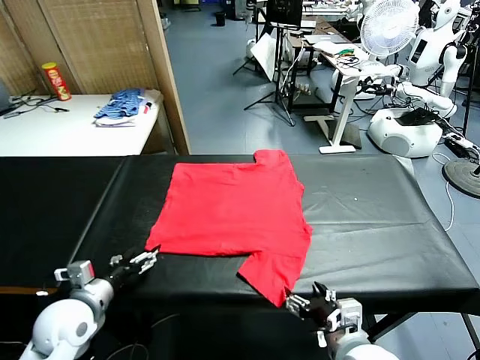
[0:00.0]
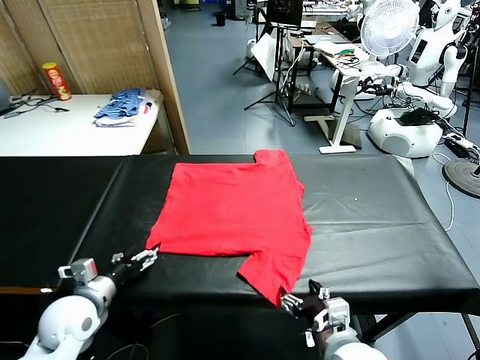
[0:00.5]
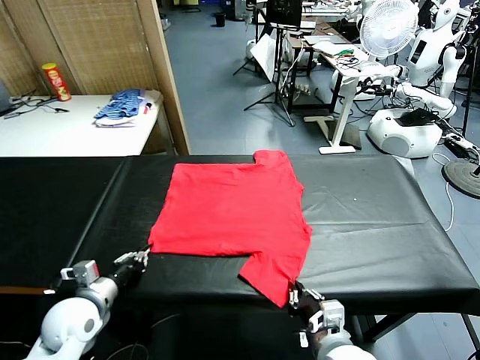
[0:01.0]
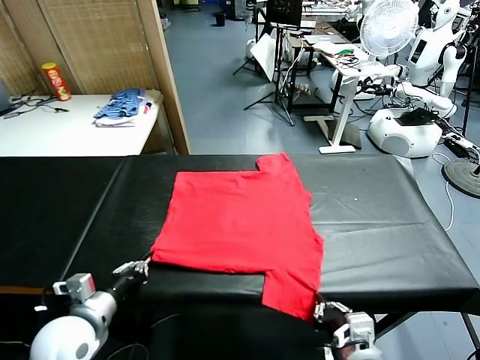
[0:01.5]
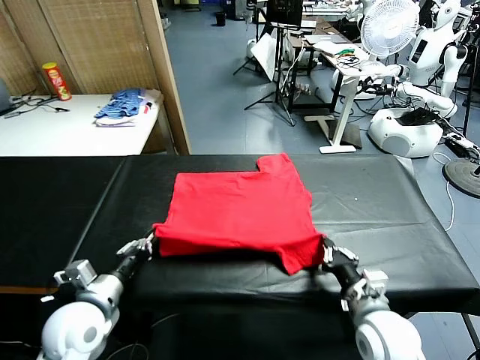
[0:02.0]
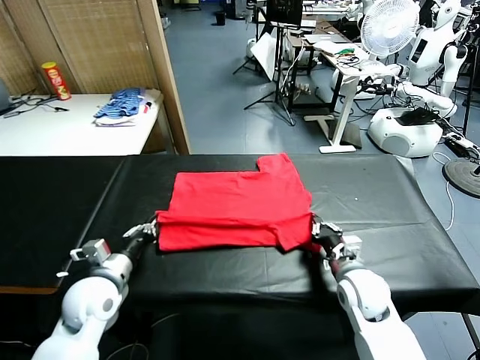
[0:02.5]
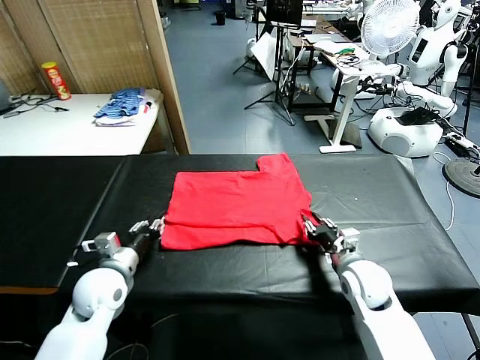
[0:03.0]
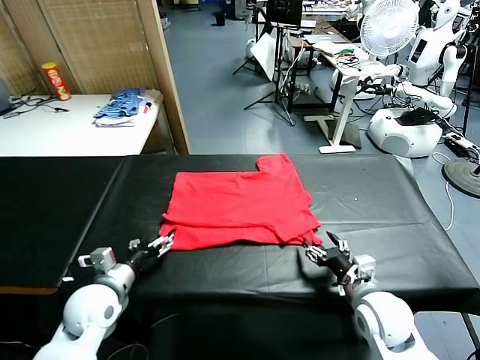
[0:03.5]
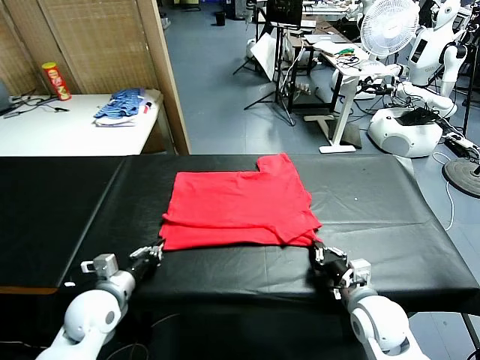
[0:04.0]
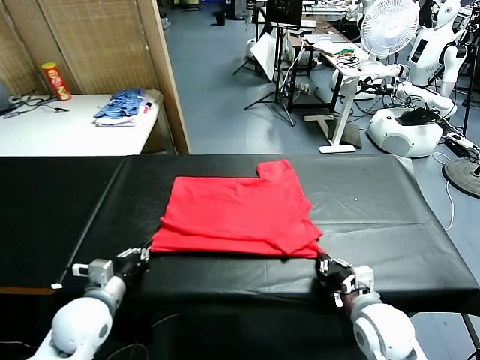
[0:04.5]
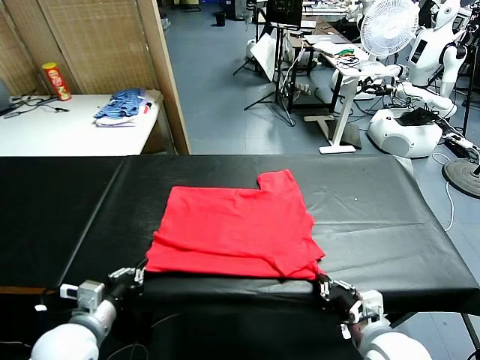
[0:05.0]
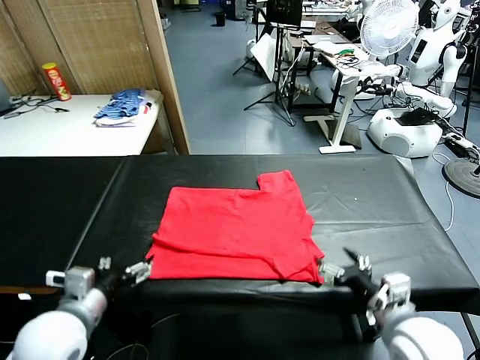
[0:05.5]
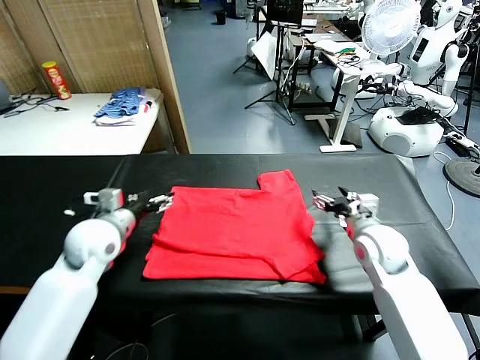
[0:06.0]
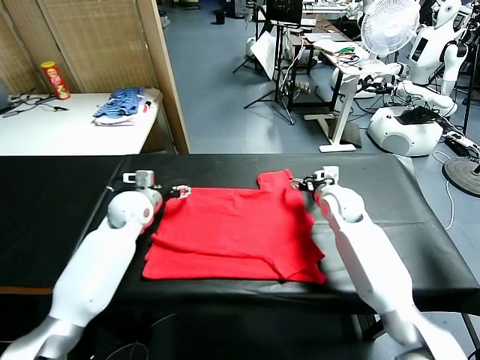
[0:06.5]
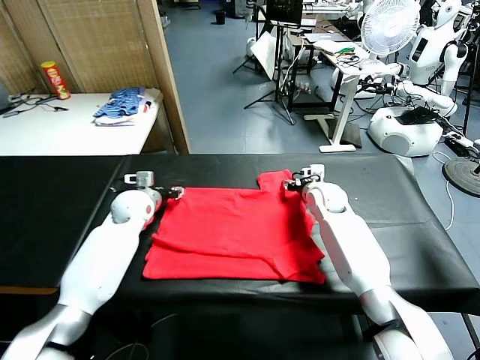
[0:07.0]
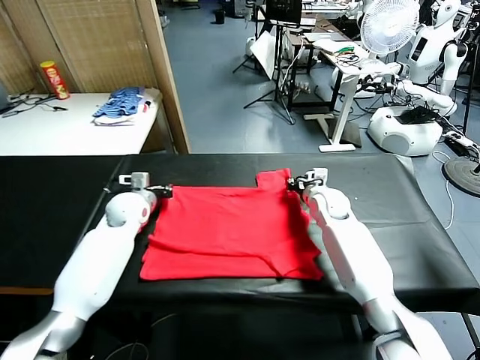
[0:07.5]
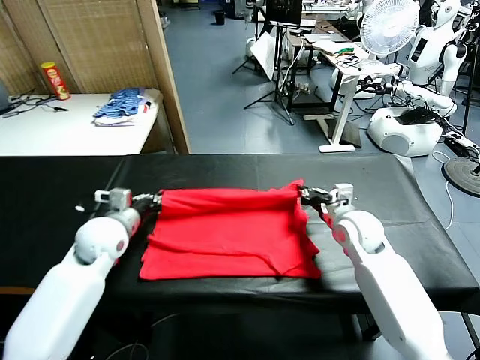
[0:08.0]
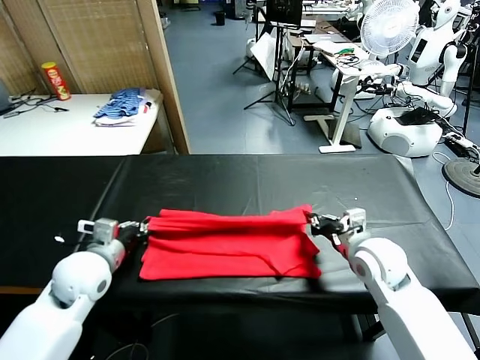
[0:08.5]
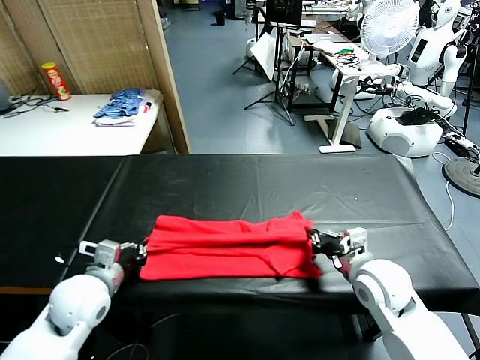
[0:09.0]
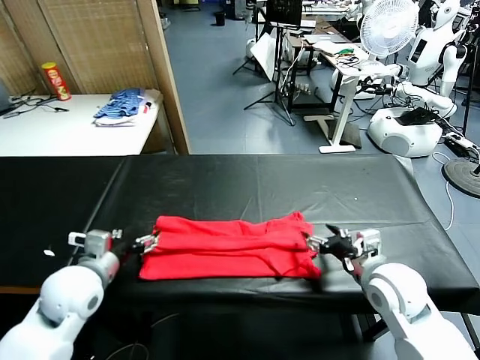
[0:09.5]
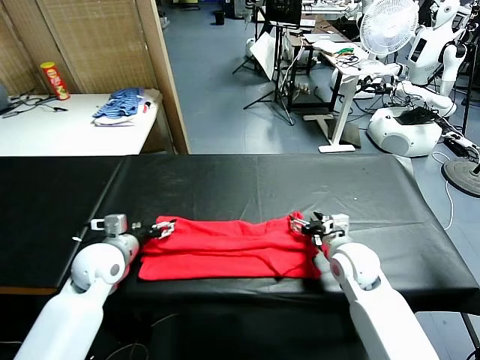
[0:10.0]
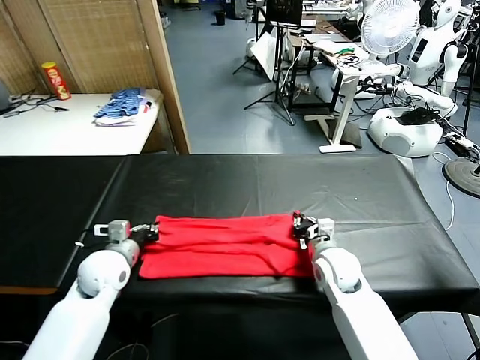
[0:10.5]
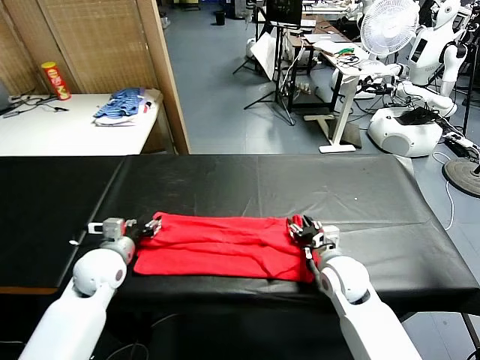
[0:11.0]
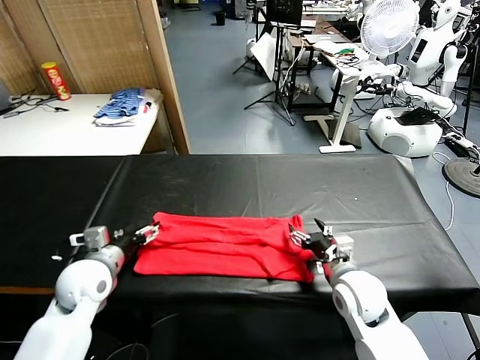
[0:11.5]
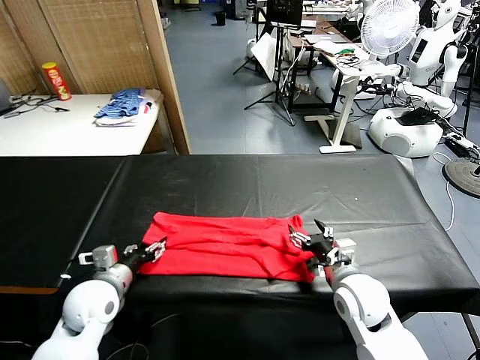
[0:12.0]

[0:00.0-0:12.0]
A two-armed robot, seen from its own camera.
Task of the whole recording: fold and organize the clothes.
Step, 0:00.0 to 0:01.0: use both grippers simultaneously to clamp the lower edge of the clothing fabric.
Step, 0:01.5 to 0:03.0: use both grippers to drag the lower edge of the fabric forward and fold it over the upper edge.
Step, 0:03.5 to 0:05.0: Drag the clothes downward with both gripper.
Step, 0:05.5 to 0:07.5: use both grippers simultaneously to clamp the upper edge of the clothing fabric.
Step, 0:08.0 to 0:09.0: use both grippers to drag the upper edge of the fabric backward and fold it over the lower edge.
0:02.0 to 0:04.0: The right gripper travels forward and back again, some 5 cm each way, and opens, then closes again. Meanwhile the left gripper travels downward by approximately 5 cm, and opens, then closes again.
0:04.0 to 0:06.0: The right gripper shifts about 20 cm forward, and opens; the left gripper shifts some 15 cm forward and upward, and opens its fingers.
0:06.0 to 0:08.0: The left gripper moves about 10 cm forward and comes back, and closes. Meanwhile the right gripper heads backward, covering approximately 5 cm, and closes up.
0:08.0 to 0:10.0: The left gripper goes backward and returns, approximately 10 cm each way, and opens, while the right gripper shifts some 5 cm downward, travels backward and back again, some 10 cm each way, and opens up.
0:10.0 to 0:12.0: The two grippers go about 5 cm backward. The right gripper closes, then reopens. The left gripper closes, then reopens.

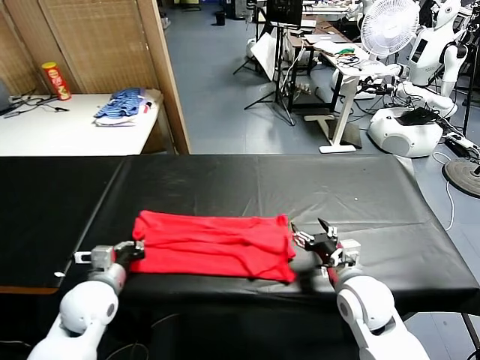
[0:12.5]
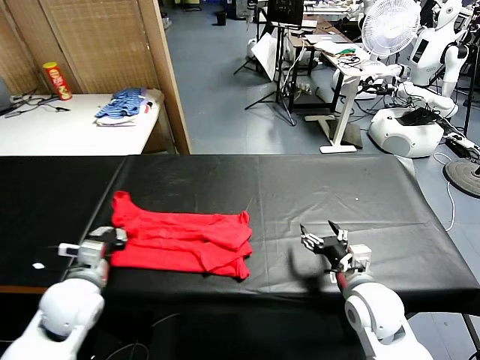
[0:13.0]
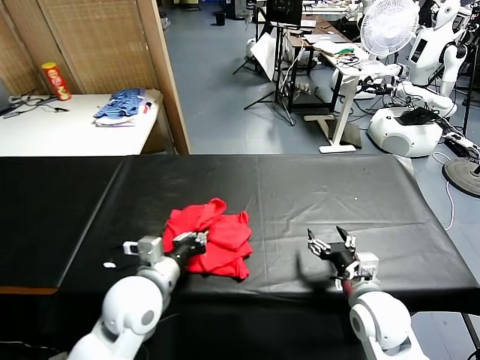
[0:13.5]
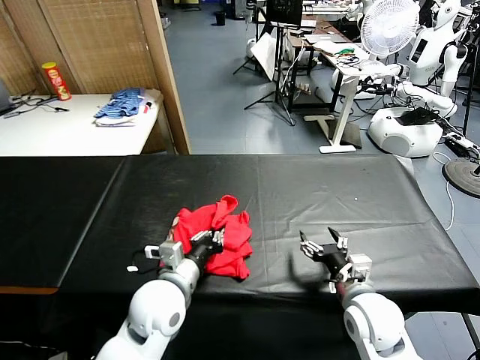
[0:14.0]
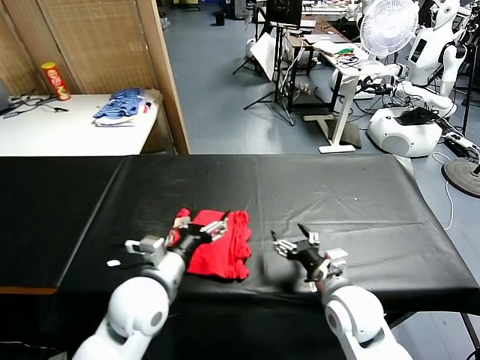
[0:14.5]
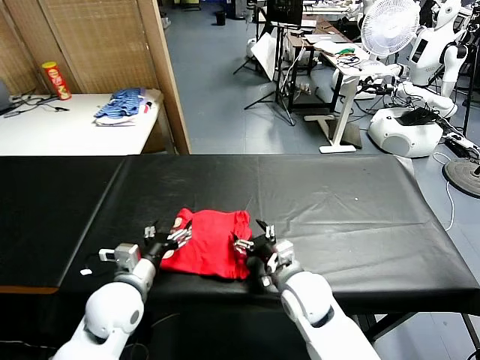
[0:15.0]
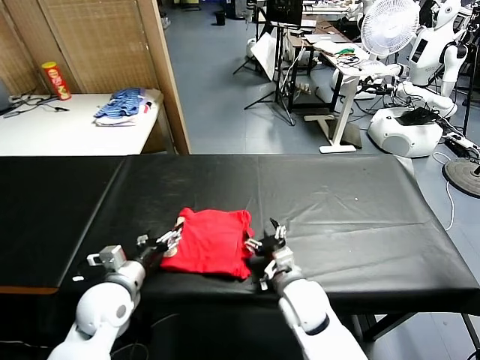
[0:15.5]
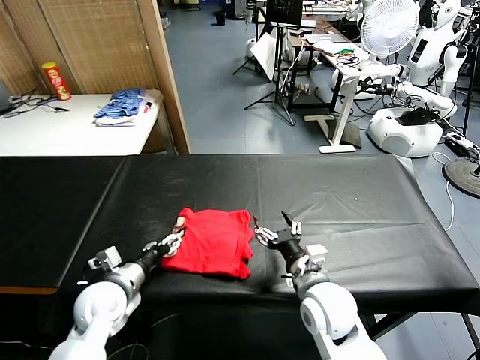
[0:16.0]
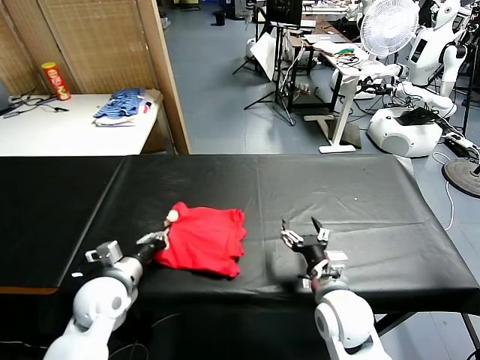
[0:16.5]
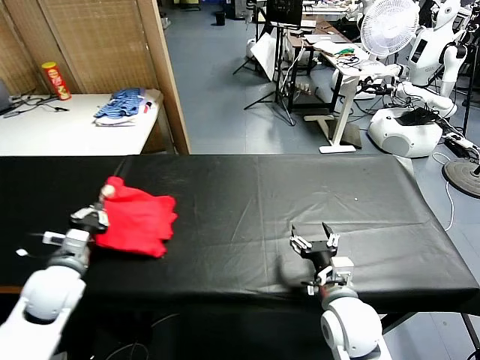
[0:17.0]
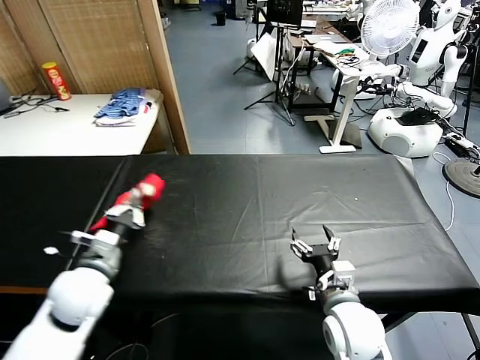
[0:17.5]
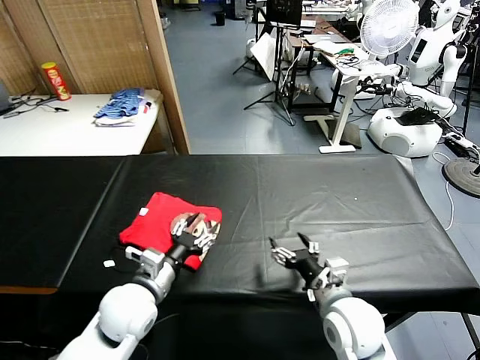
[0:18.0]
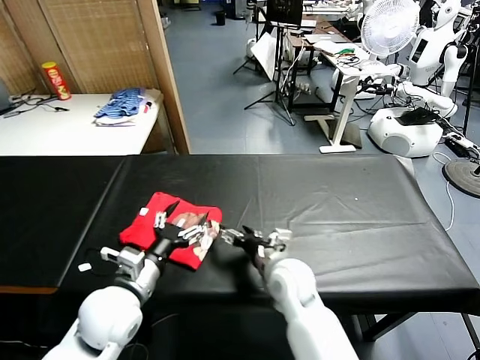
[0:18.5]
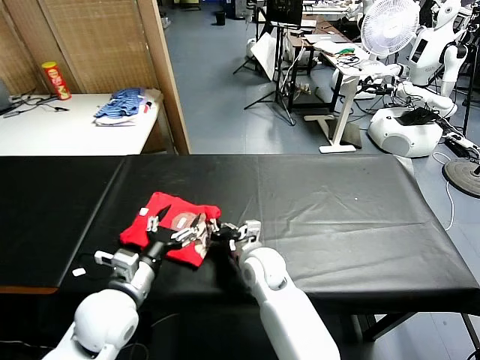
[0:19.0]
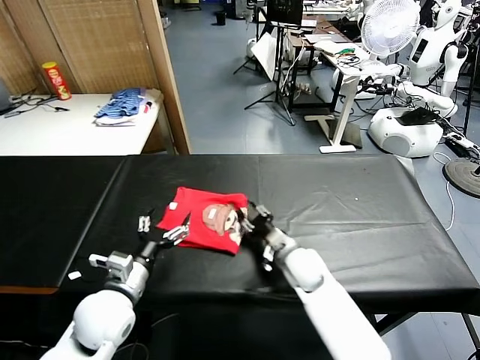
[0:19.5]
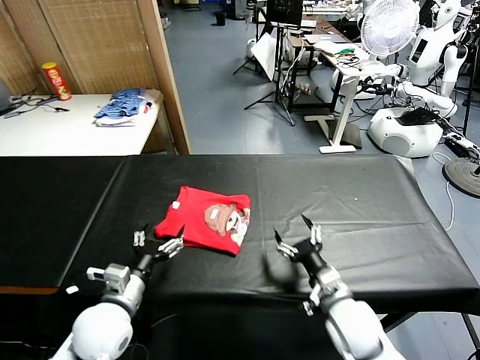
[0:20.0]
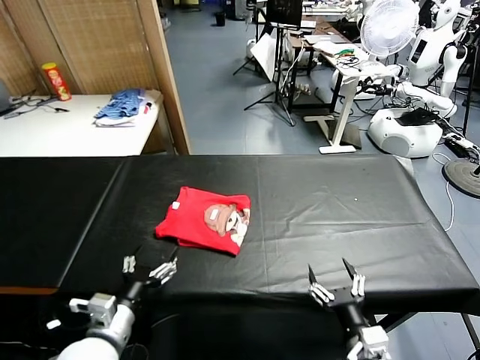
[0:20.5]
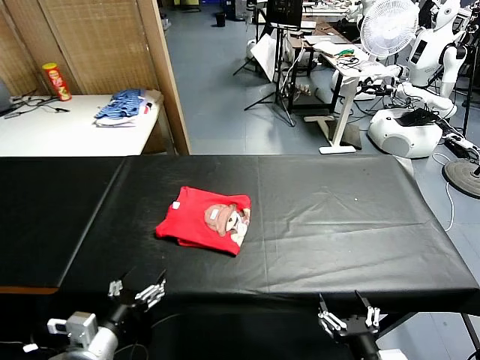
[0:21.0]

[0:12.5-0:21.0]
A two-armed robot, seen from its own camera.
Task of the whole recording: fold and organize the clothes.
Step, 0:13.0 to 0:14.0: use the left gripper to drag the left edge of the fabric to the left and folds it over the right edge.
Step, 0:14.5 to 0:18.0: Flip the folded clothes over with left gripper.
Step, 0:18.5 to 0:19.5: Drag the clothes to the center of the table.
0:12.5 to 0:14.5: The left gripper heads to the right and upward, covering approximately 15 cm, and opens.
0:14.5 to 0:16.5: The right gripper goes to the left and returns, about 10 cm each way; the left gripper shifts some 15 cm to the left and downward, and closes up.
0:16.5 to 0:19.0: The right gripper shifts roughly 20 cm to the left and forward, and closes. The left gripper heads upward and to the right, covering roughly 10 cm, and opens.
0:19.0 to 0:21.0: The right gripper goes approximately 35 cm backward and to the right, and opens its fingers. The left gripper goes roughly 10 cm backward.

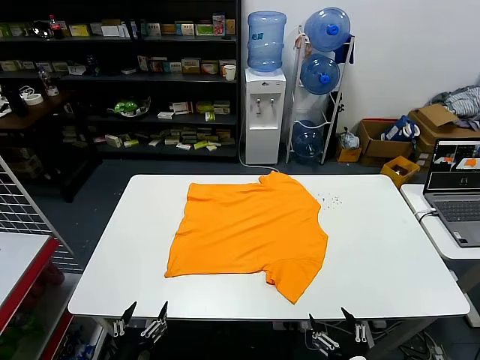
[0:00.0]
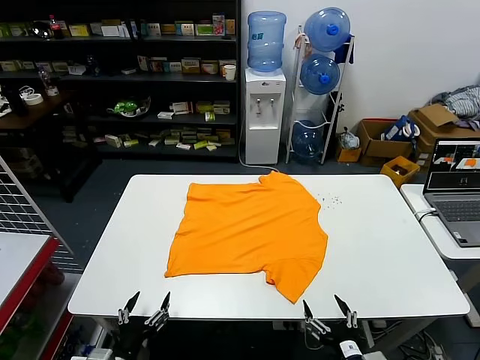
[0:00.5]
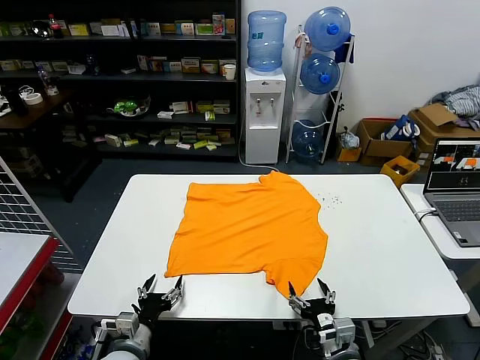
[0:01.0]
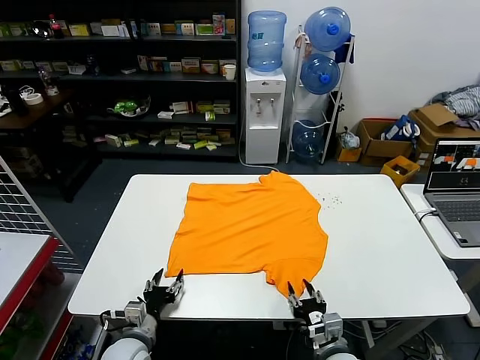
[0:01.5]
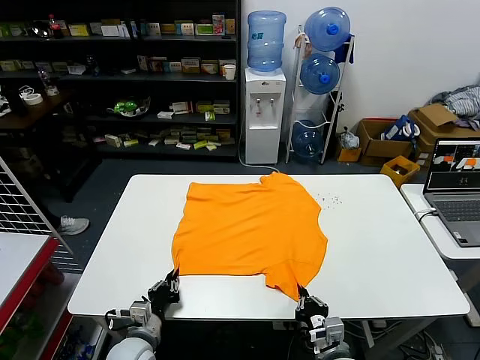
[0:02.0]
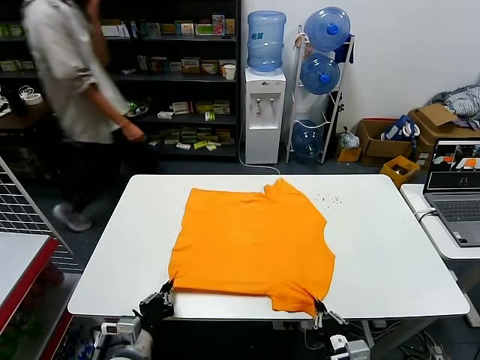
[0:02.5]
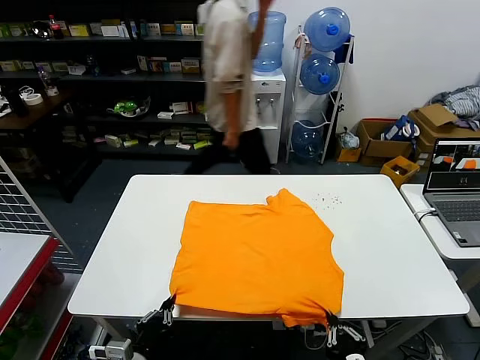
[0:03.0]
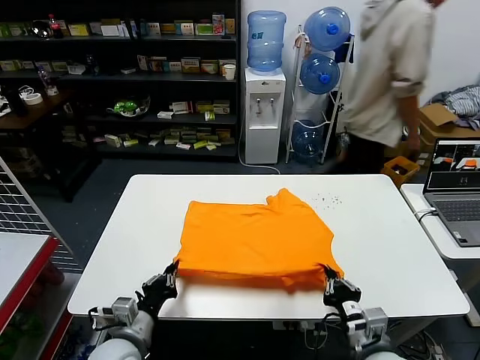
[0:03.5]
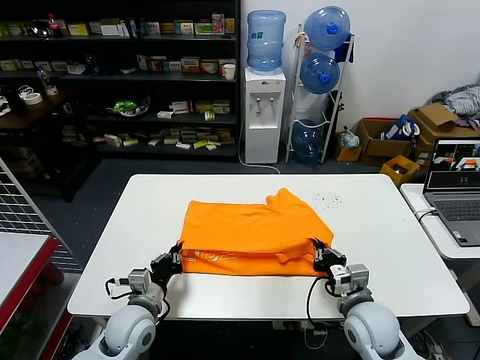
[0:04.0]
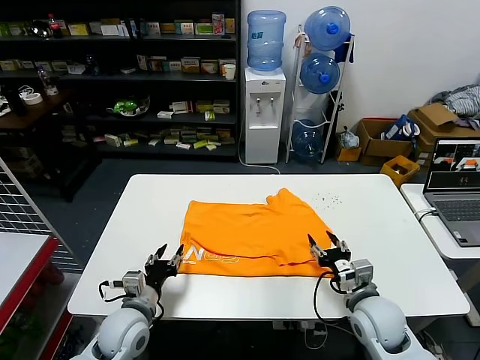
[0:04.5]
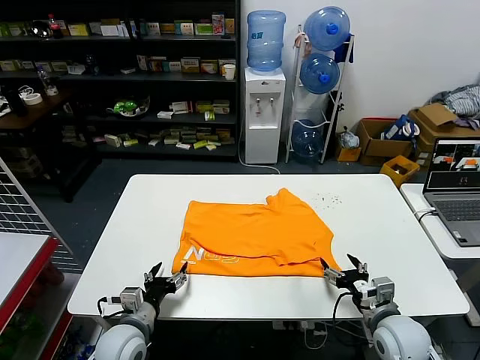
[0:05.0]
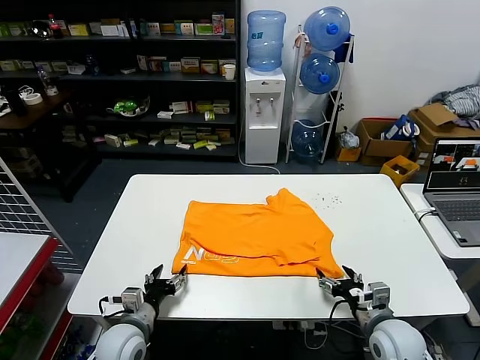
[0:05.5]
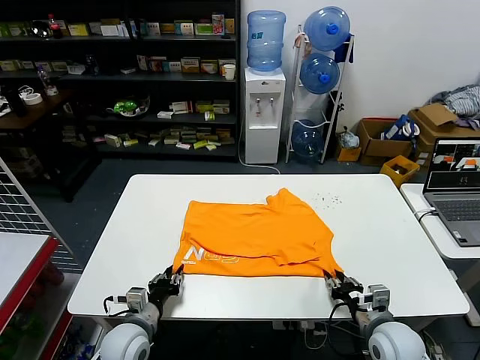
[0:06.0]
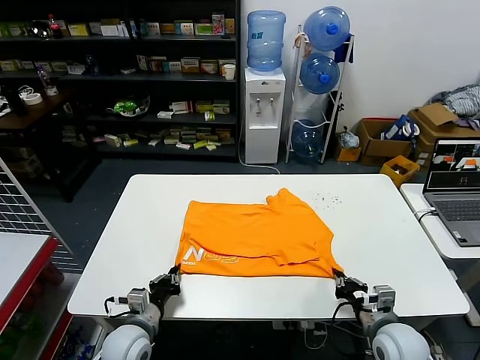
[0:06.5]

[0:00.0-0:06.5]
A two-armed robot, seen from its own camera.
Task of the whole recording: fold and organize the clothes.
Step, 0:00.0 to 0:02.0: use both grippers simultaneously to clamp the lower edge of the clothing fabric.
Step, 0:02.5 to 0:04.0: use both grippers to drag the lower edge of the fabric forward and fold it over the upper edge.
0:02.0 to 0:04.5: The right gripper shifts approximately 15 cm forward, to the right and upward, and opens. Meanwhile the left gripper moves upward, approximately 5 cm, reaches some 10 cm backward, then returns, and opens.
0:04.5 to 0:06.5: The left gripper closes up; the right gripper shifts by some 5 cm, and closes.
